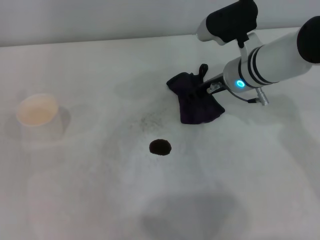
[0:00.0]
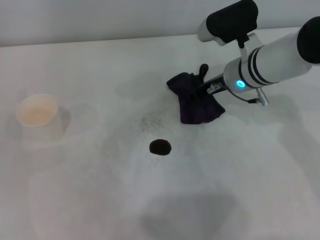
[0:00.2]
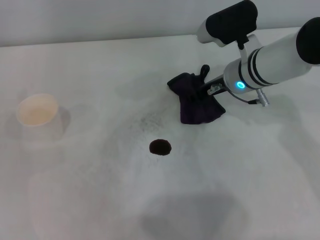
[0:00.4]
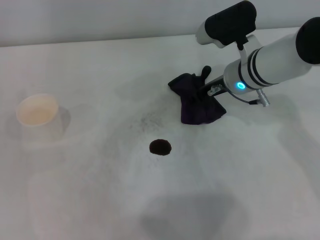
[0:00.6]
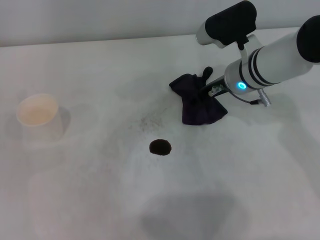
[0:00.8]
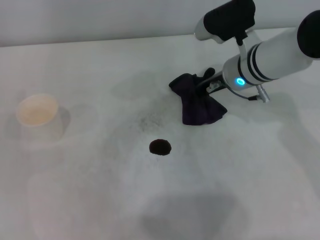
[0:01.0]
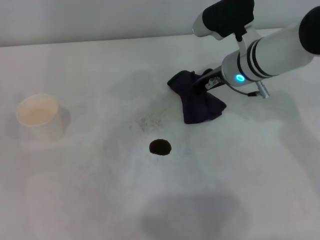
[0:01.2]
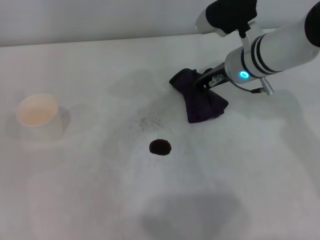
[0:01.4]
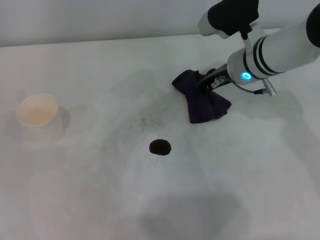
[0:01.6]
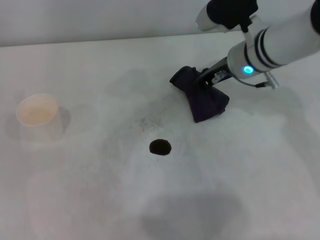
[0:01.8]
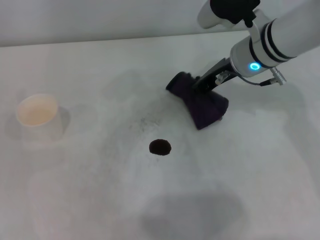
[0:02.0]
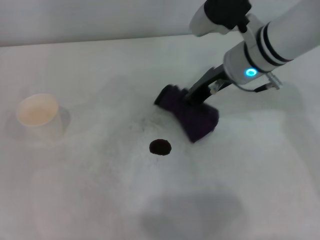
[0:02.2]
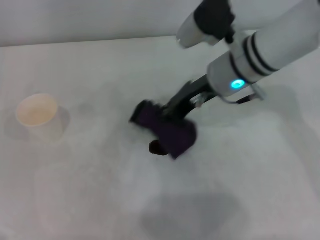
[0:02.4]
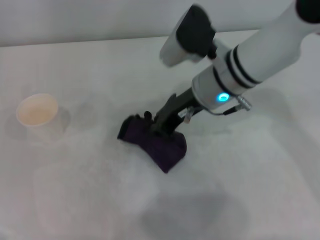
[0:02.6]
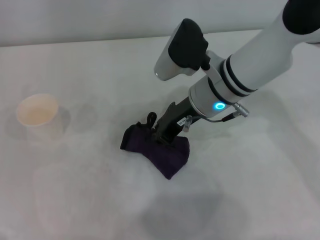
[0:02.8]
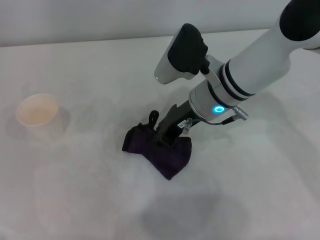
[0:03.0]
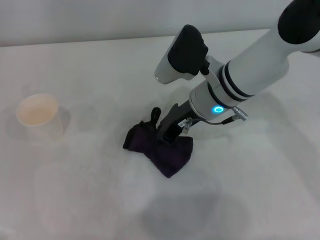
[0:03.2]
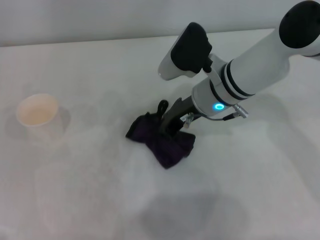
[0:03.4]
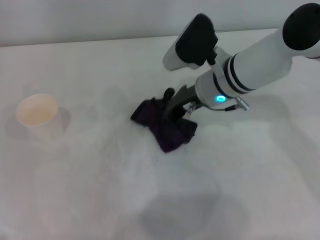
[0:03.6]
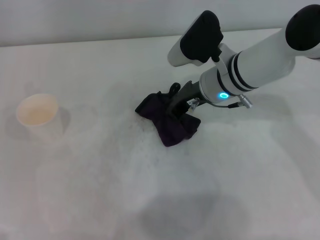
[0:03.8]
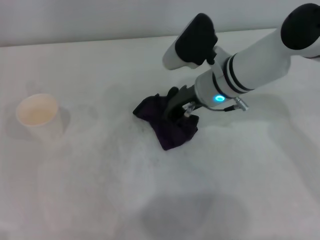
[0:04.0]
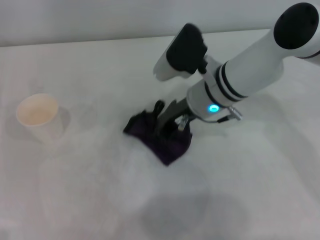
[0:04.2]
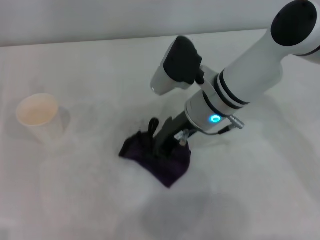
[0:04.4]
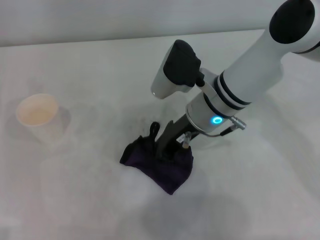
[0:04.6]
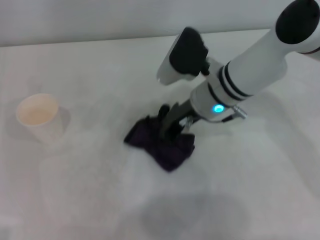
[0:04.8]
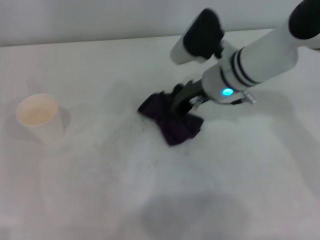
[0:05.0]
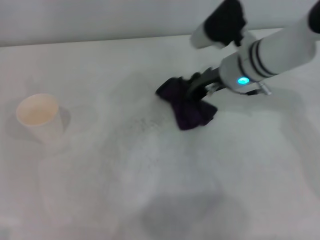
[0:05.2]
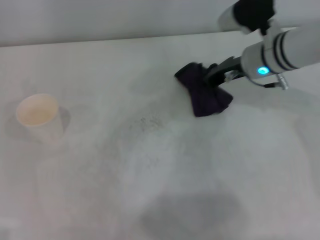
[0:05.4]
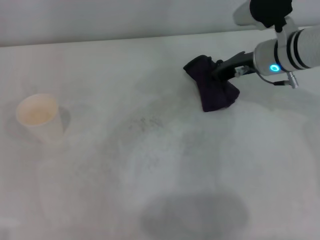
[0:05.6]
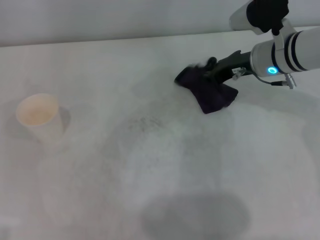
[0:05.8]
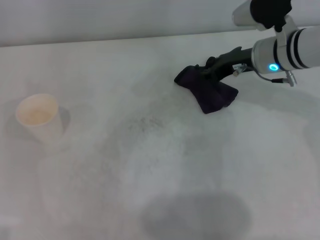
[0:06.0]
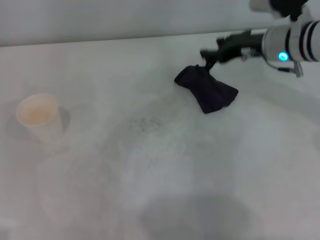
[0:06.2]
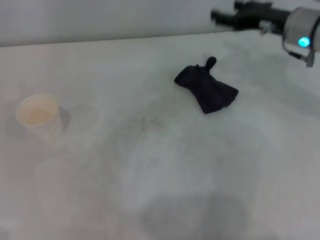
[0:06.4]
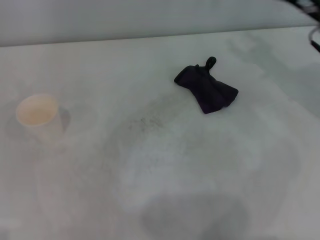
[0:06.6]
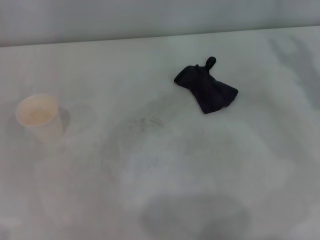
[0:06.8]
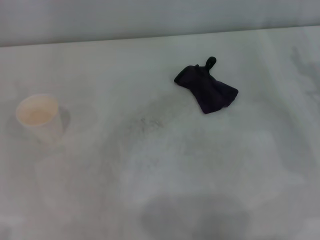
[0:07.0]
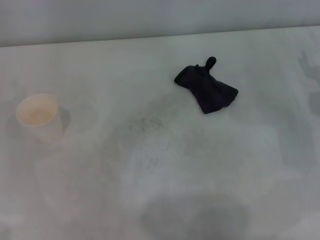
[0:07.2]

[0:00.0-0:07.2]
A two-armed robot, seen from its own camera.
Step, 0:00.8 to 0:05.0: Wipe the stains off the table with the right gripper.
Step, 0:05.2 to 0:05.6: Place the rag on the table with the right gripper.
0:00.0 to 0:01.4: The right gripper closes up.
0:01.4 to 0:02.8: The right gripper travels to the left by approximately 5 cm.
0:02.8 to 0:04.4: The grippers move only a little.
0:04.4 to 0:05.8: The right gripper shifts some 10 cm to the right and forward.
0:05.8 to 0:07.2: The right gripper heads to the right, backward and downward, covering roughly 15 cm, and opens its fingers.
